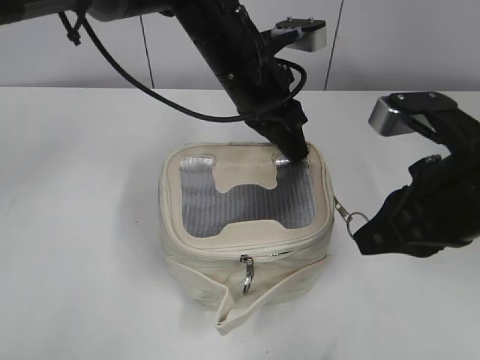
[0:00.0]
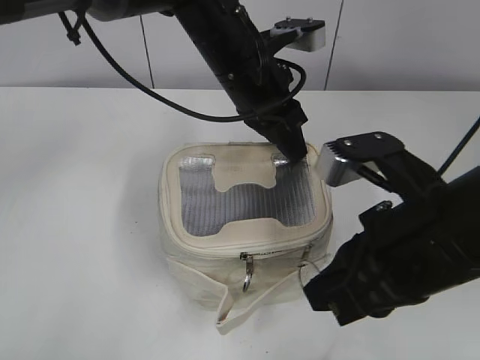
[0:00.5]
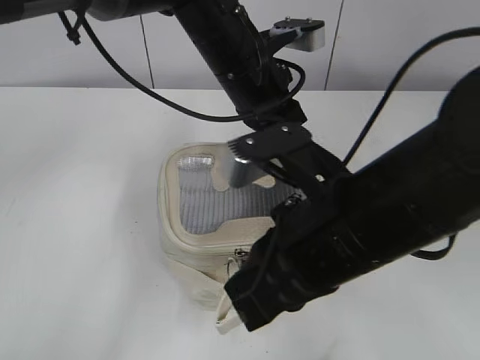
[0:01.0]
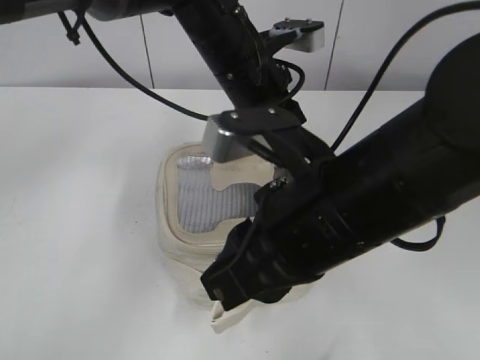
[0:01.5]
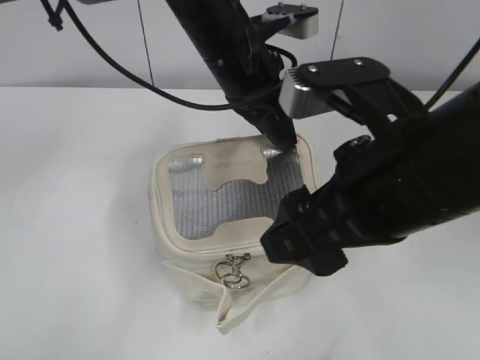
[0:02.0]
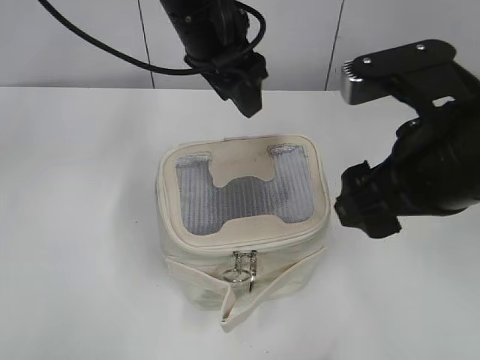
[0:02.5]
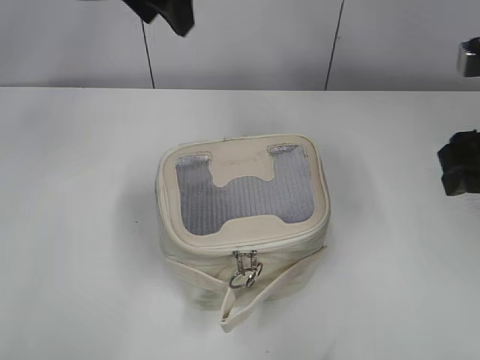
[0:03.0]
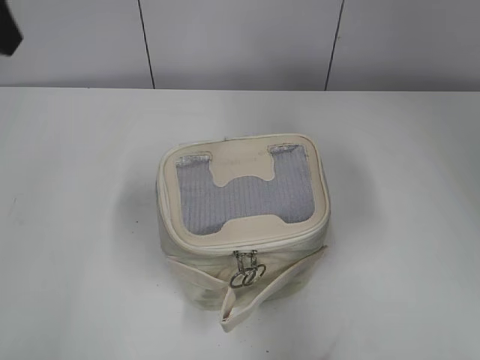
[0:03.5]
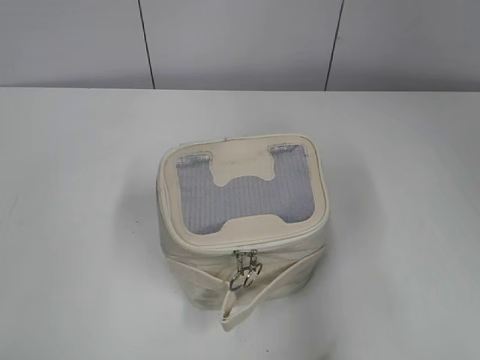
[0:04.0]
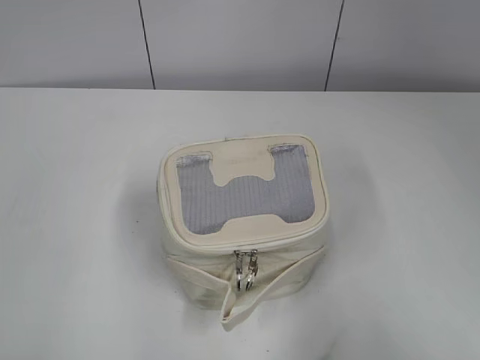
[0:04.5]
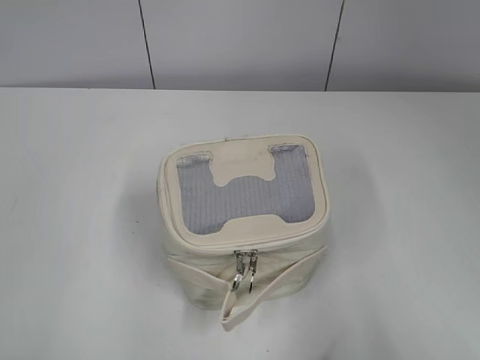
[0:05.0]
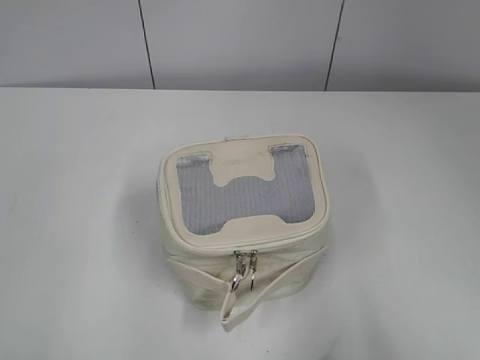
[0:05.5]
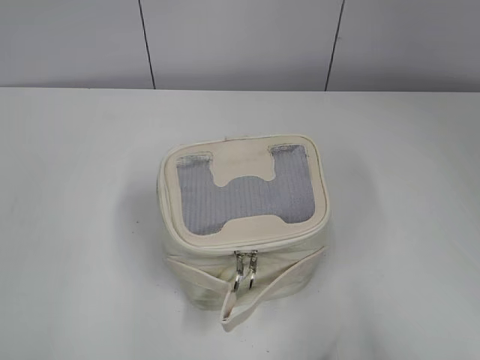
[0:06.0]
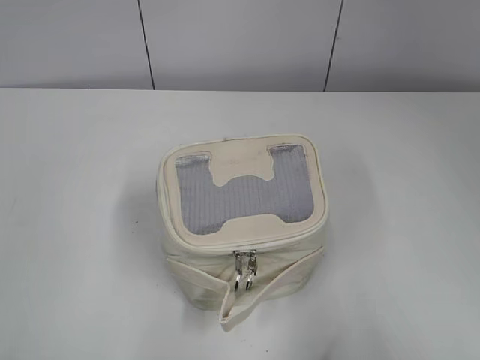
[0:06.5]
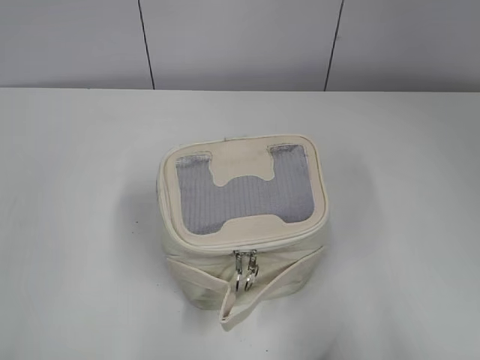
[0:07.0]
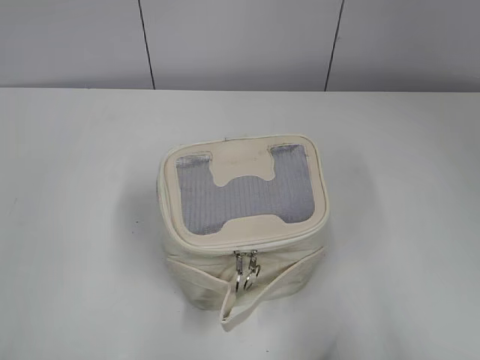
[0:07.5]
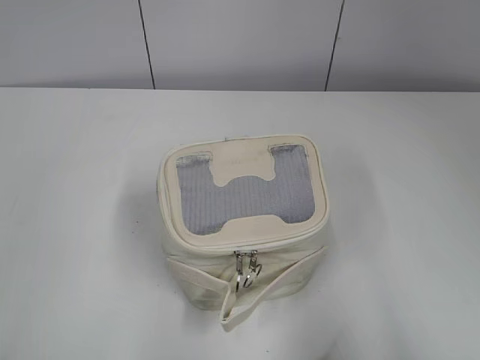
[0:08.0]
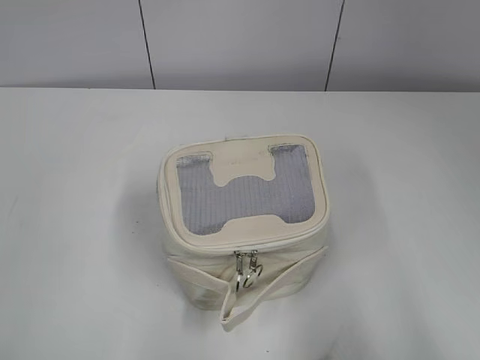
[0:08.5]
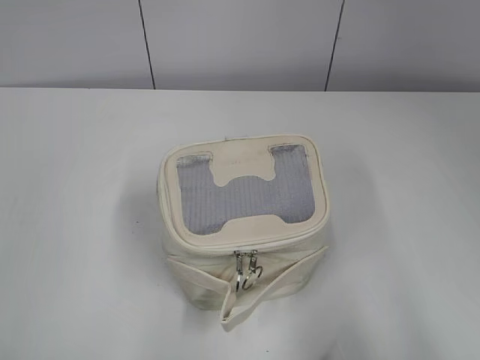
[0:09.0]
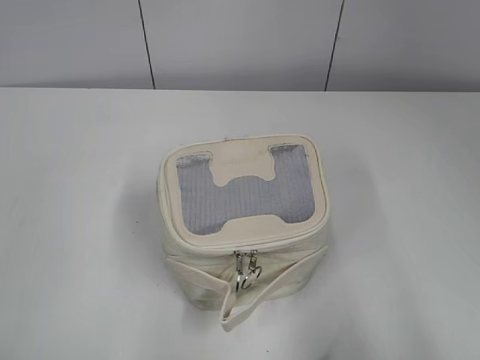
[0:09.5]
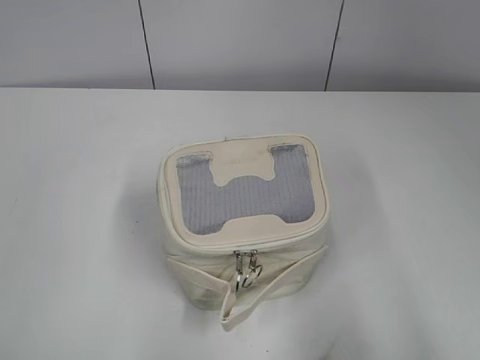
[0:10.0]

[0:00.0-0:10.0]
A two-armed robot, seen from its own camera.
0:00.0 to 0:02.0: The right gripper goes about 10 cm to the left, and opens up.
0:02.0 to 0:04.0: The right gripper goes some 15 cm to the right. The left gripper heads to the left and backward, covering approximately 35 cm, and opens.
0:04.0 to 0:06.0: The right gripper goes about 10 cm backward. The left gripper travels backward and downward by about 15 cm.

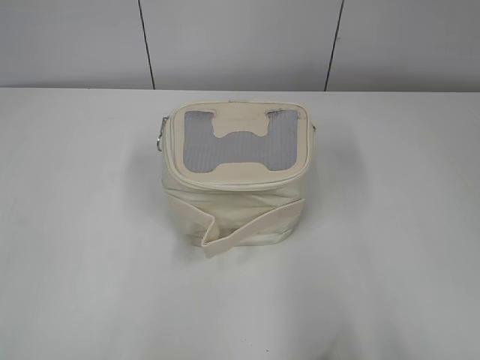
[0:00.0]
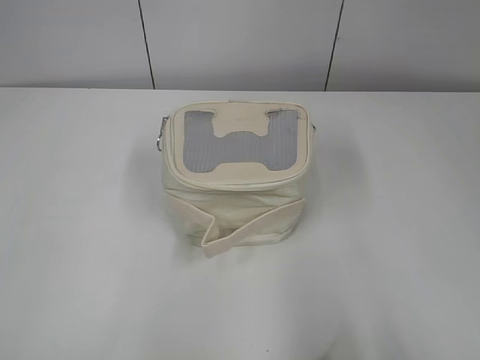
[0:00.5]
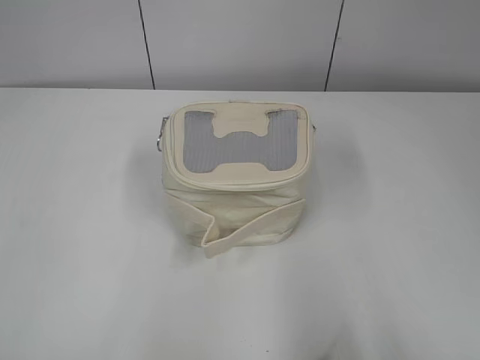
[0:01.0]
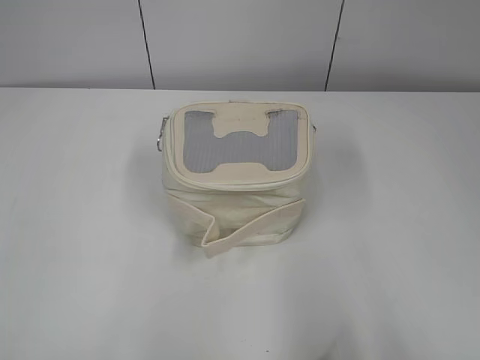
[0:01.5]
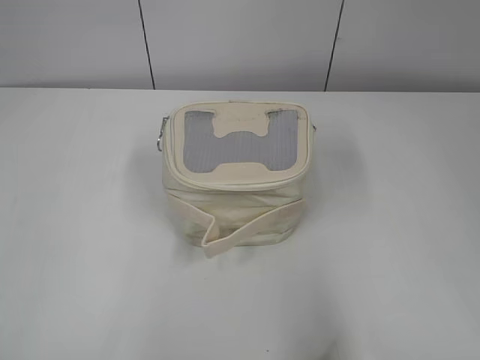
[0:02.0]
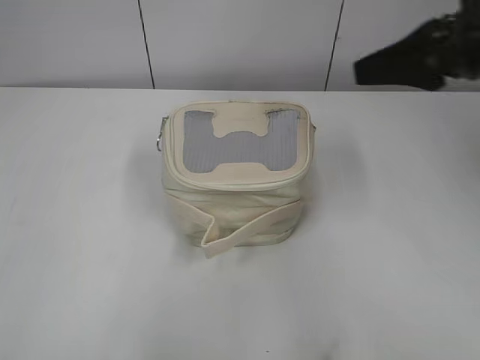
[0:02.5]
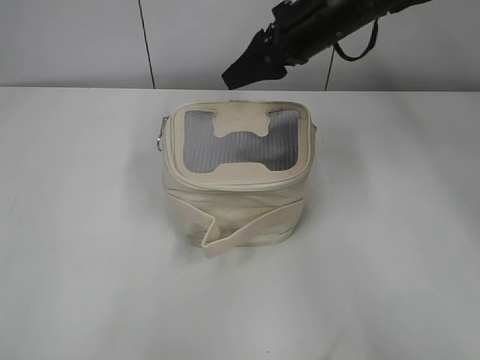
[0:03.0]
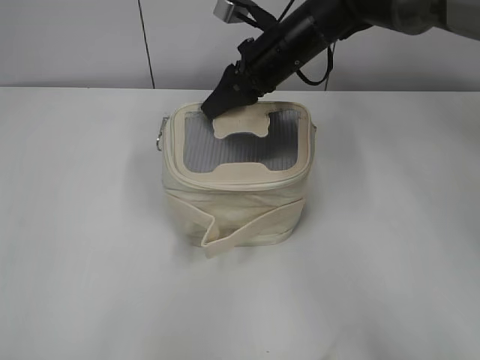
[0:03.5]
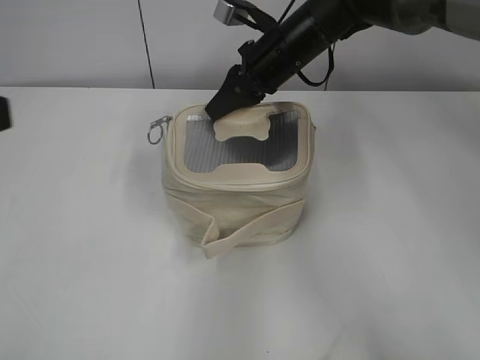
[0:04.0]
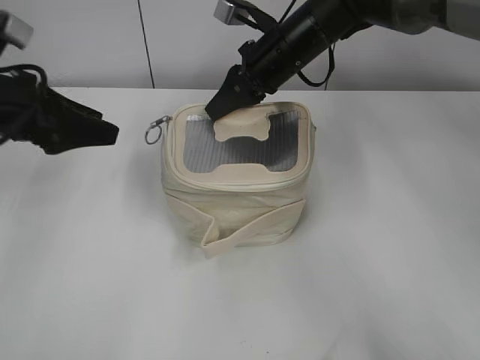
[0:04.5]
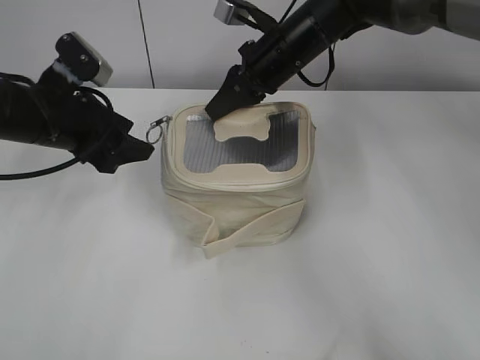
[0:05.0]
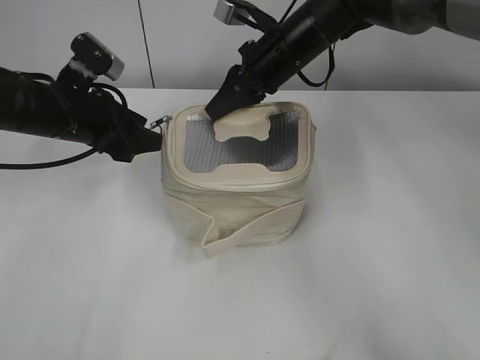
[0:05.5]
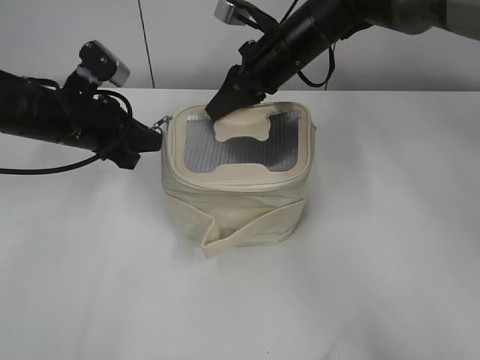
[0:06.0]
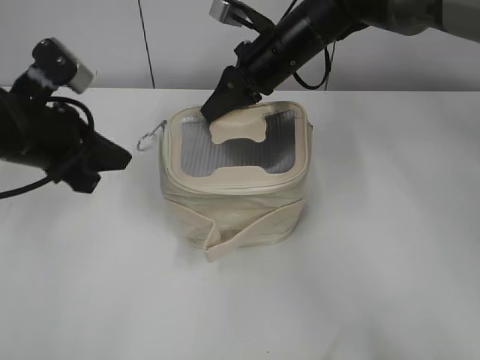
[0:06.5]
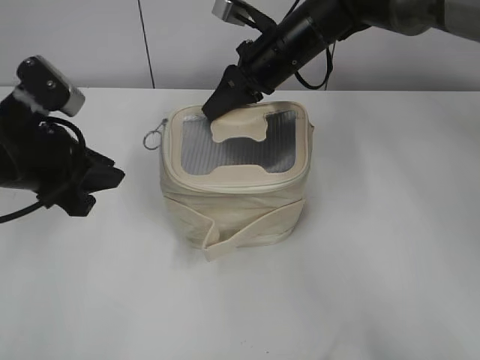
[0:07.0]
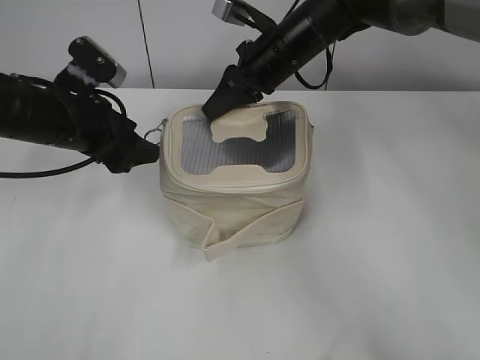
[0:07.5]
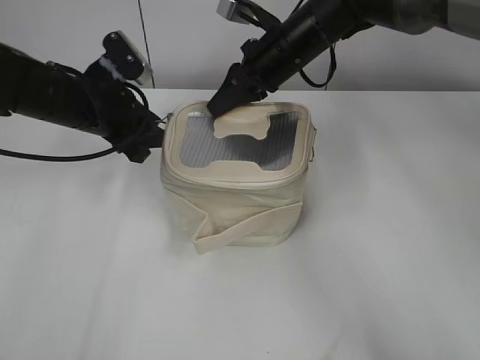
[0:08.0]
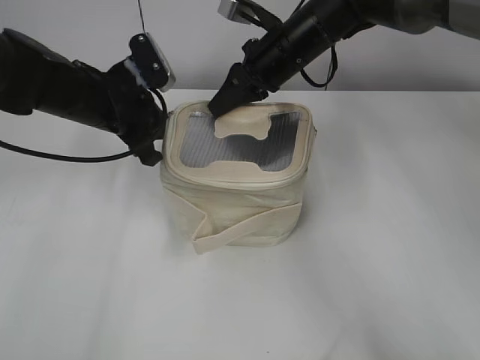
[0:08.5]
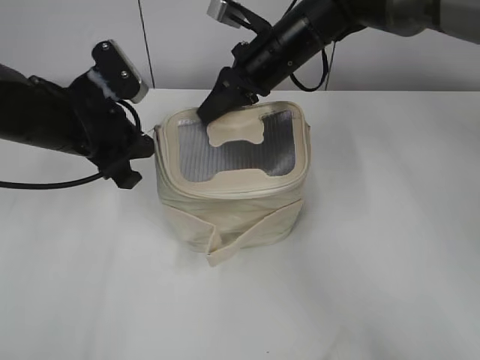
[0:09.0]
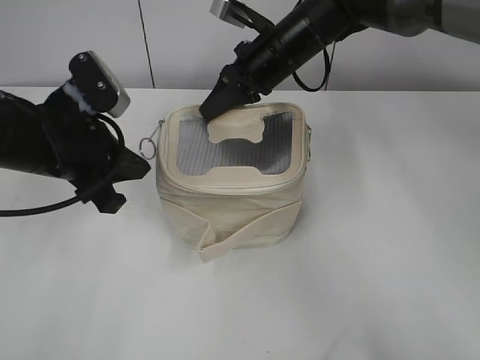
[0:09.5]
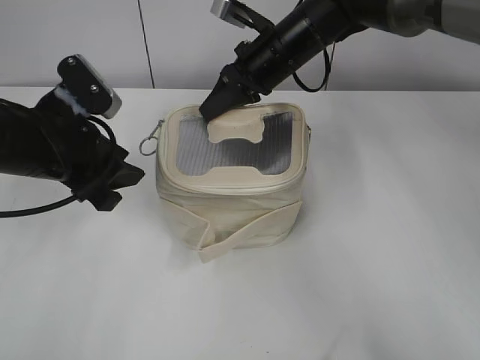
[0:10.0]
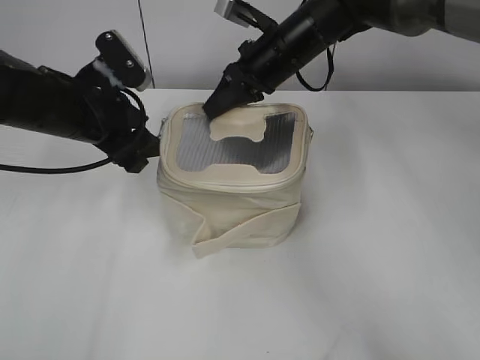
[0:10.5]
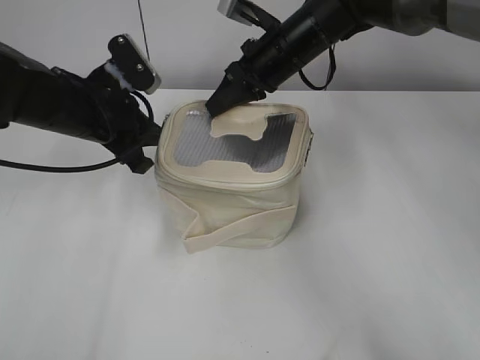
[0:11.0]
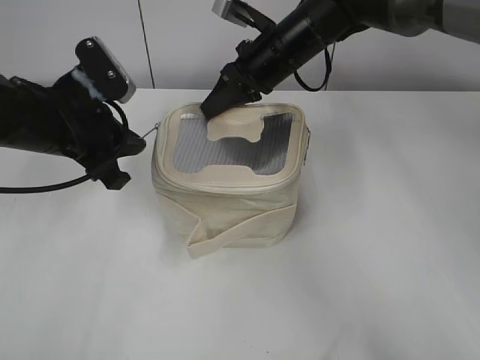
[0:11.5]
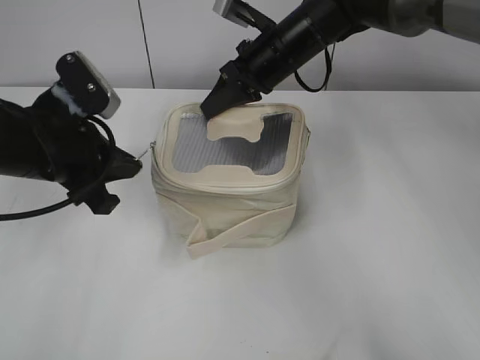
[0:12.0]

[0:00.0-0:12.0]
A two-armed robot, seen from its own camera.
0:02.0 to 0:04.0: The right gripper heads forward and to the left, covering some 50 cm, and closes its fingers. The left gripper travels forward and to the right by approximately 15 cm.
0:04.0 to 0:06.0: The left gripper moves forward and downward, approximately 25 cm, and closes.
0:06.0 to 0:08.0: The left gripper reaches about 10 cm backward, then returns, and opens.
0:08.0 to 0:10.0: The left gripper moves backward, approximately 10 cm, and closes, then reopens.
0:10.0 to 0:12.0: The left gripper closes its fingers.

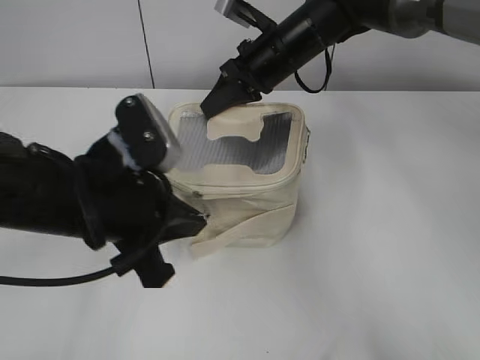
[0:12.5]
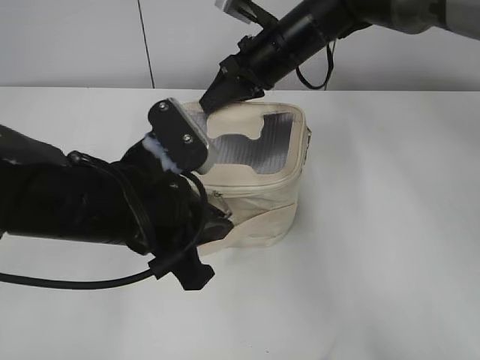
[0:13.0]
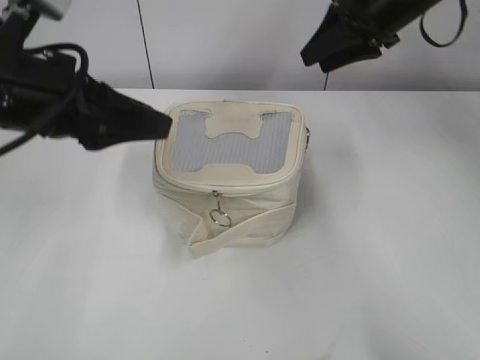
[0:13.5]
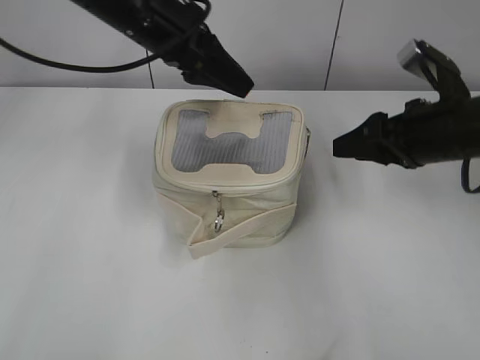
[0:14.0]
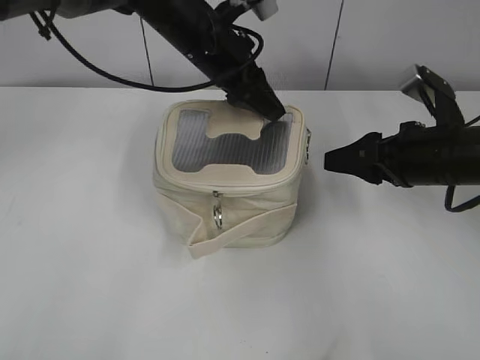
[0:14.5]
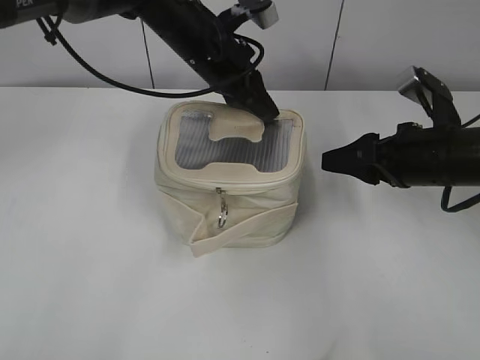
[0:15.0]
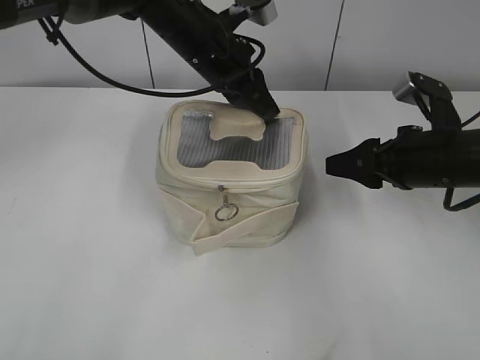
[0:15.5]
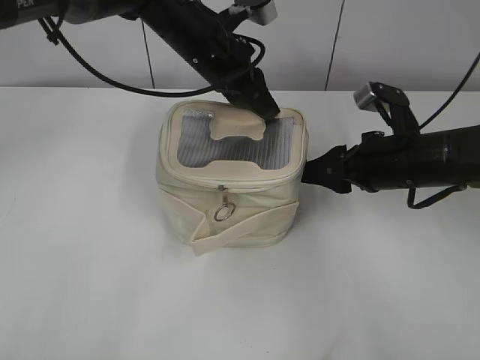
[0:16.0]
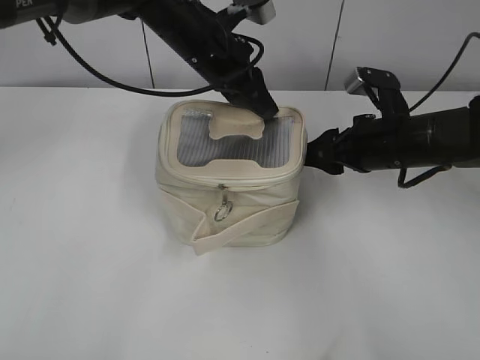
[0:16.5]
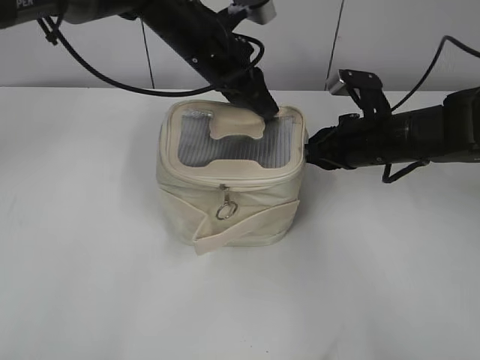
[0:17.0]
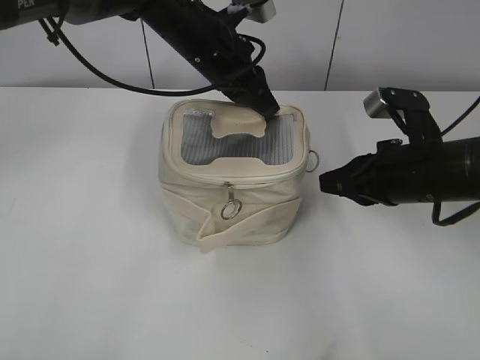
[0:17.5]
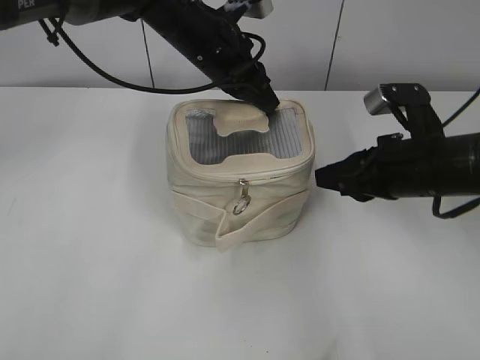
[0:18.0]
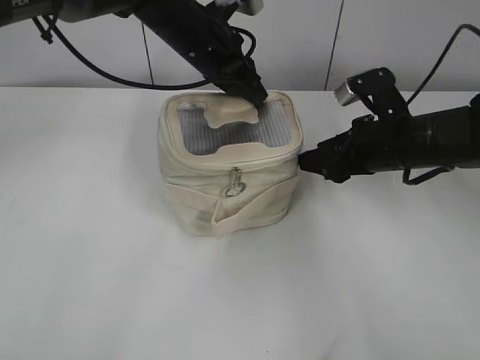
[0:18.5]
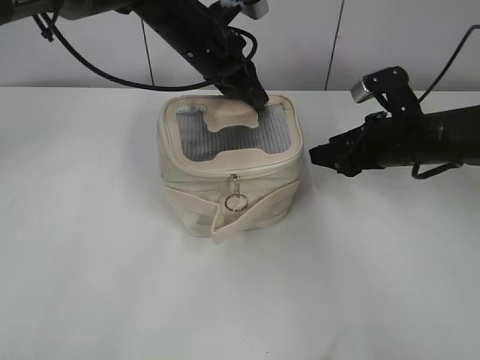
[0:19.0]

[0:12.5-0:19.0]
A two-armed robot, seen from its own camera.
0:12.5 to 0:14.5: The left gripper travels forward and to the right by approximately 25 cm, and opens. Meanwhile the right gripper moves to the right and backward, roughly 25 cm, and opens.
0:14.5 to 0:17.0: The right gripper moves forward, about 5 cm, and closes up, while the left gripper closes.
0:17.0 to 0:19.0: The right gripper travels backward and back again, some 10 cm each way, and opens.
